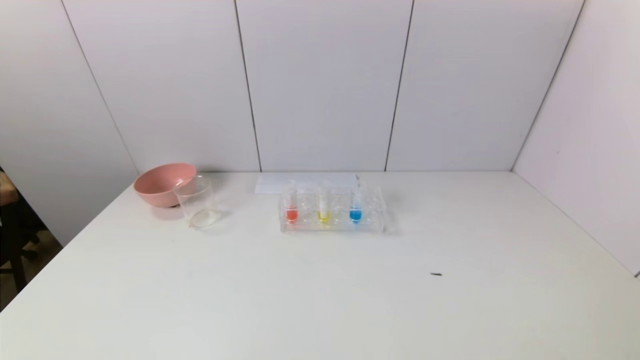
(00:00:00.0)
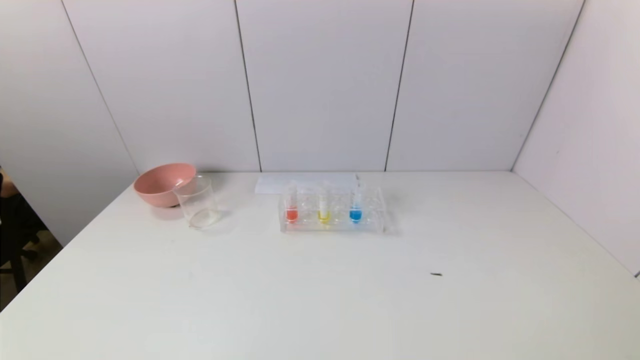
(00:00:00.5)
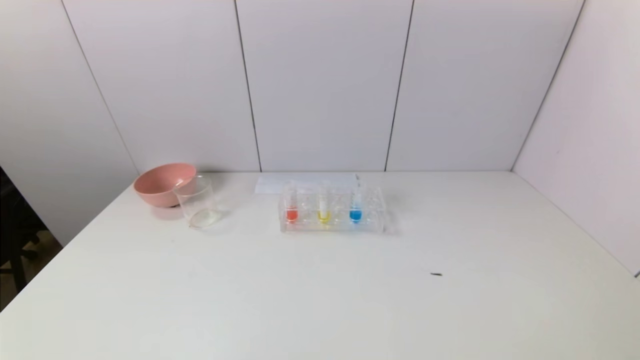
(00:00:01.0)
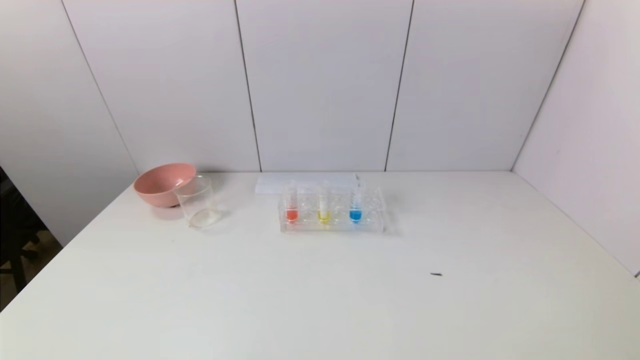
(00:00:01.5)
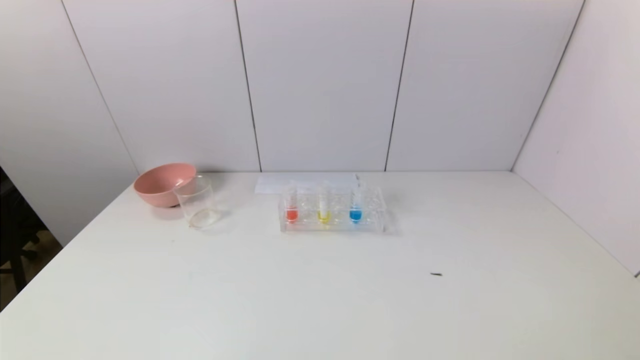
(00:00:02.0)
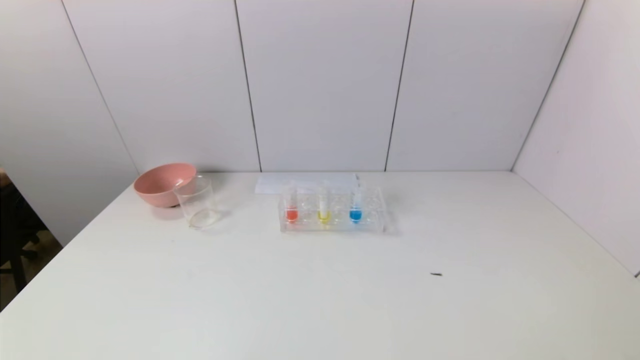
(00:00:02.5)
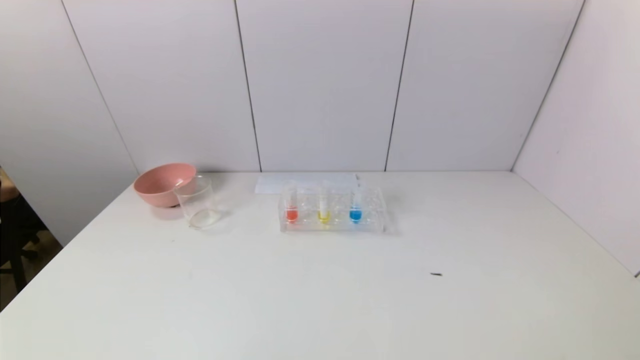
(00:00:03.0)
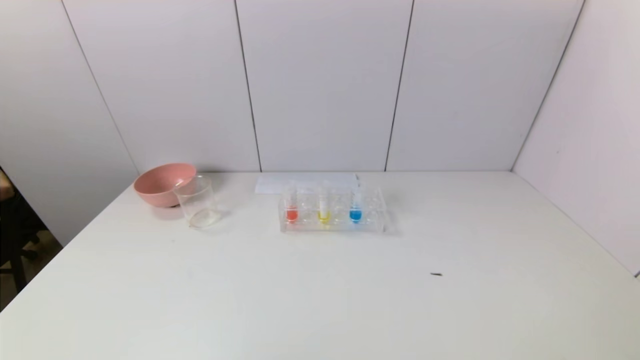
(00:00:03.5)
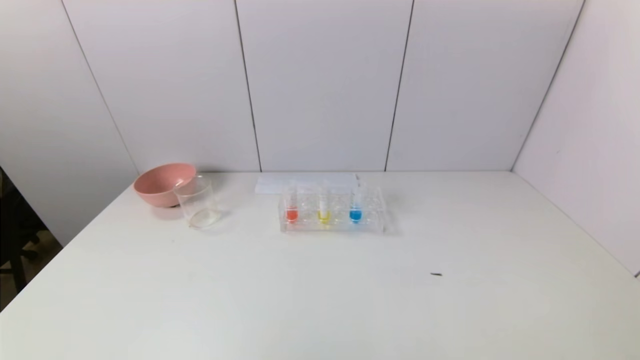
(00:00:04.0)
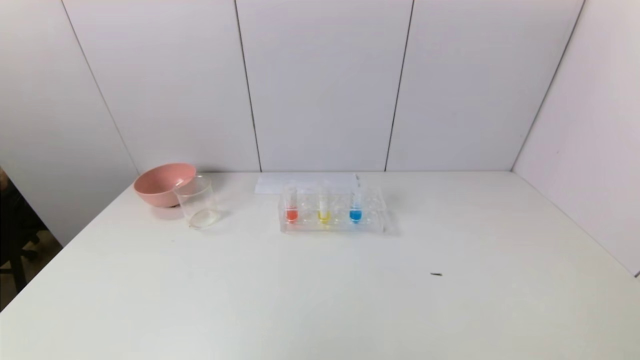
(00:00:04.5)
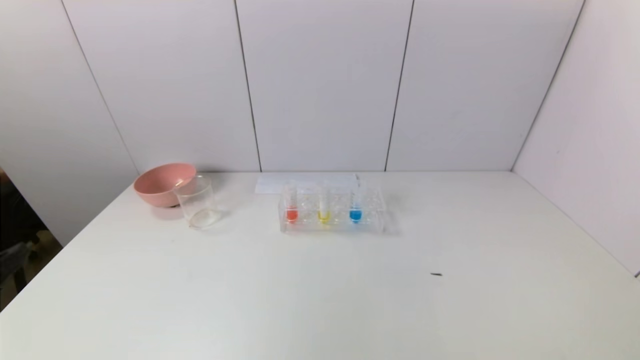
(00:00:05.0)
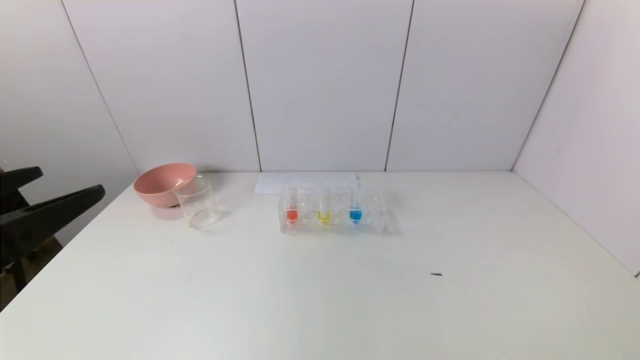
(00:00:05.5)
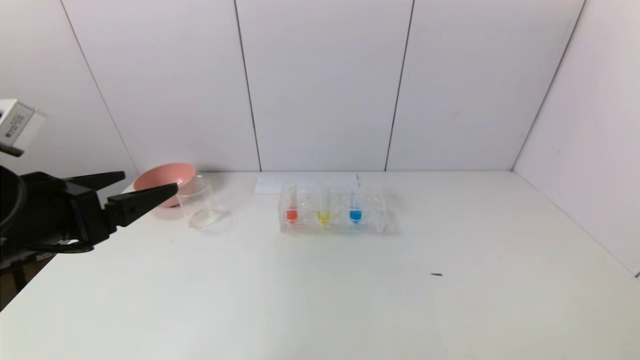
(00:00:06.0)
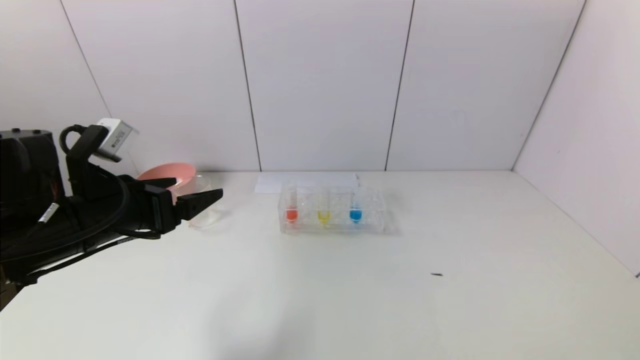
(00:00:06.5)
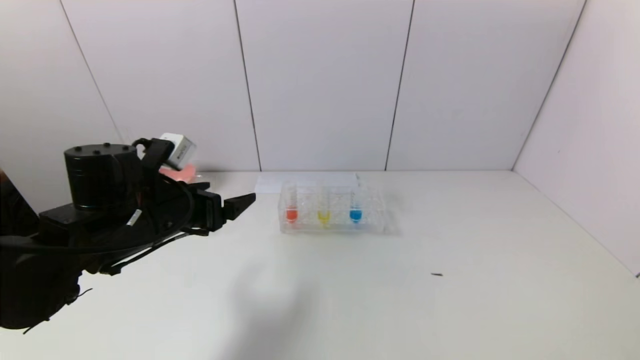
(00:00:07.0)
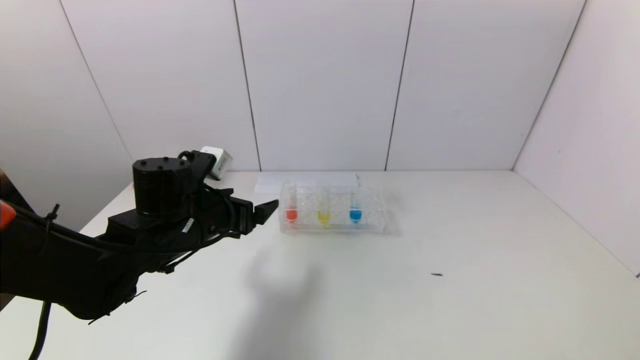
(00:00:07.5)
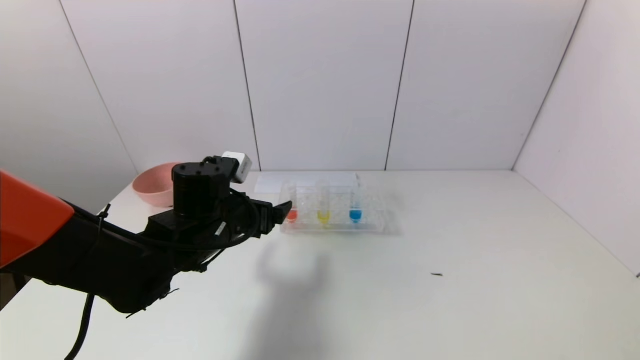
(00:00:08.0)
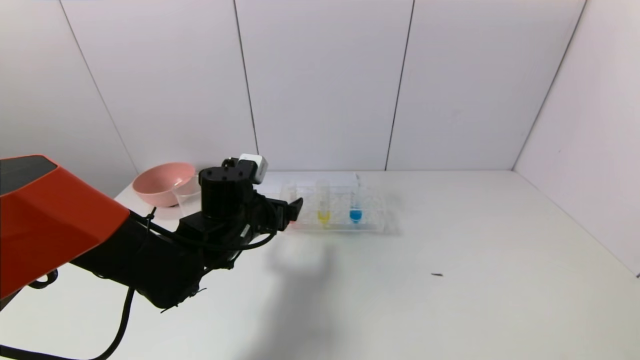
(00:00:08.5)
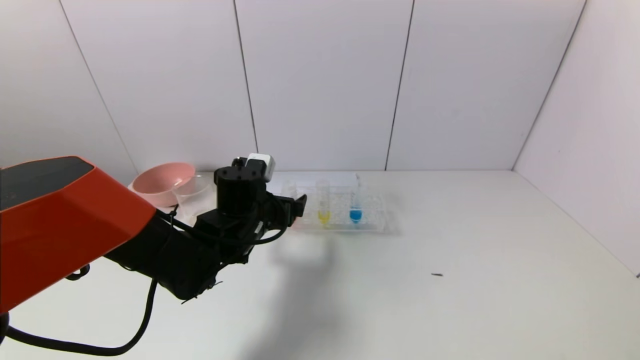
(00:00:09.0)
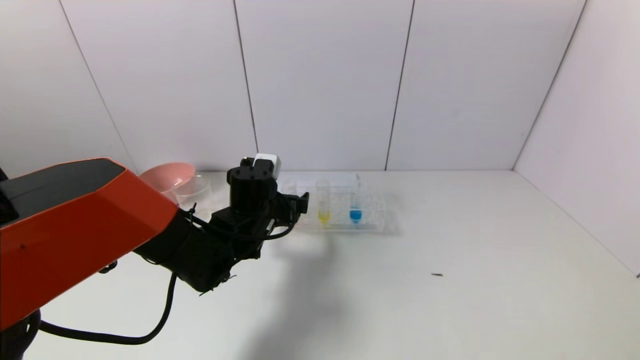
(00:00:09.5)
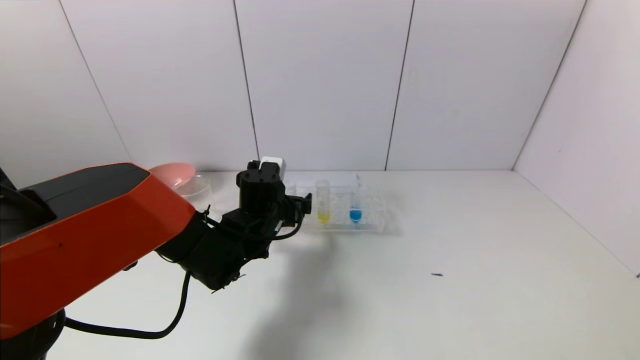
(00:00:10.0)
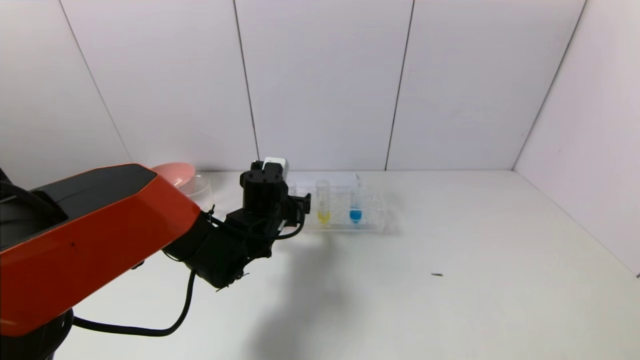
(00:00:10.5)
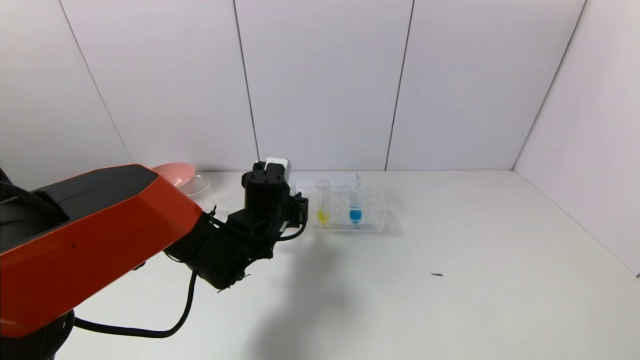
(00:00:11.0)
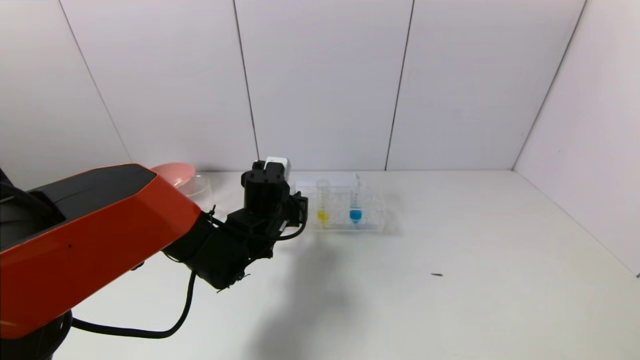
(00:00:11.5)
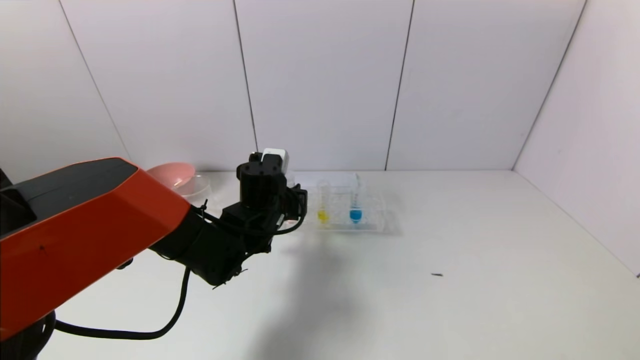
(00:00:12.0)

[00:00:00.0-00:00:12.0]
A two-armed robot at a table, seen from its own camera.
Task of the whole recording: pick up the test tube with yellow pigment and the test tube with red pigment by grippers and pour them into the beaker.
Step, 00:00:00.0 to 00:00:11.0: Grasp the red reagent with the left gripper.
00:00:00.0 to 00:00:02.0: Neither gripper changes place.
00:00:04.0 to 00:00:06.0: The left gripper heads forward, covering roughly 20 cm.
00:00:06.0 to 00:00:08.0: The left gripper heads to the right, forward and downward, covering roughly 20 cm.
00:00:08.0 to 00:00:10.0: The left gripper shifts approximately 10 cm forward and to the right.
00:00:10.0 to 00:00:12.0: The left gripper closes its fingers.

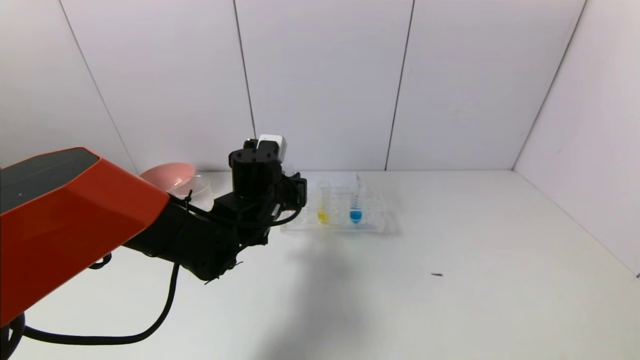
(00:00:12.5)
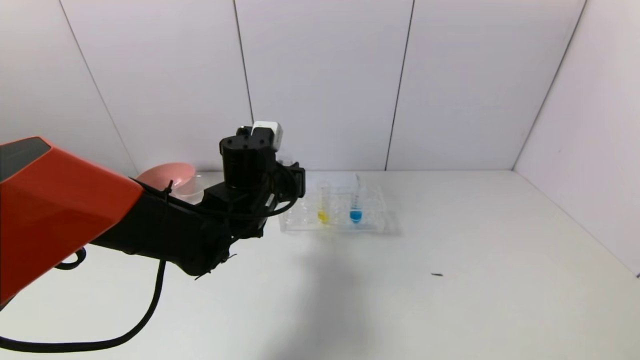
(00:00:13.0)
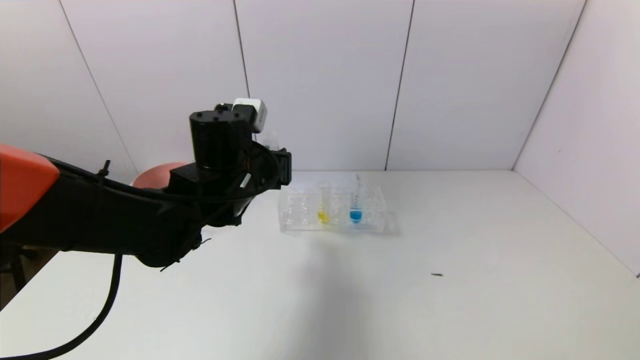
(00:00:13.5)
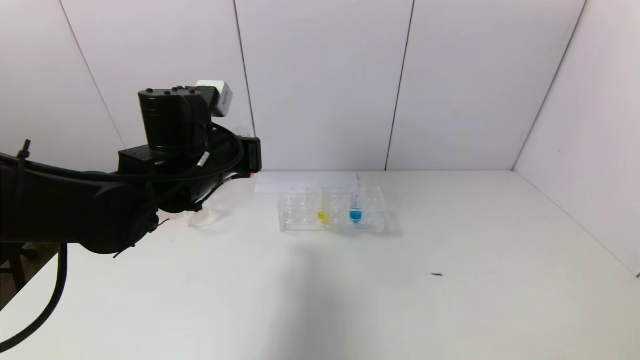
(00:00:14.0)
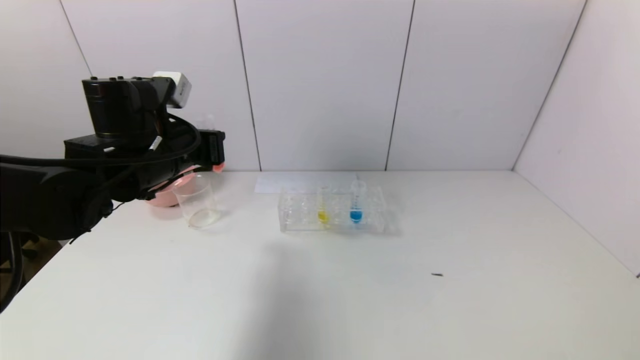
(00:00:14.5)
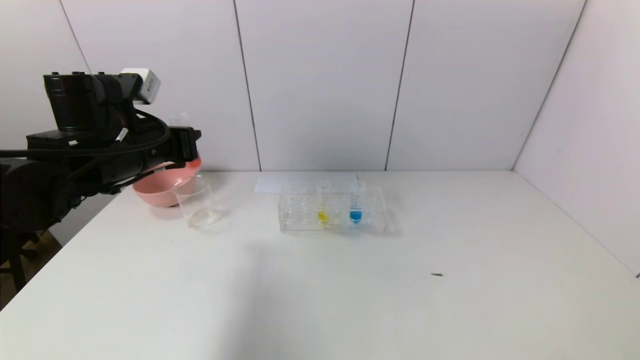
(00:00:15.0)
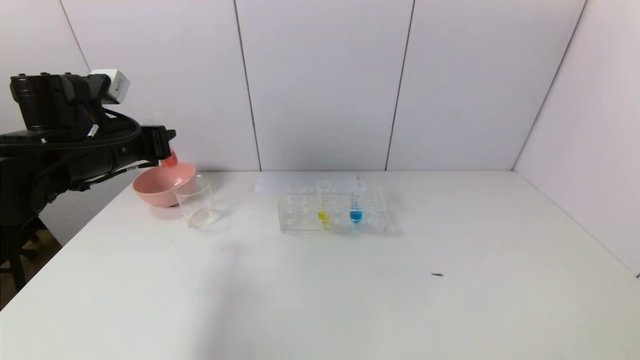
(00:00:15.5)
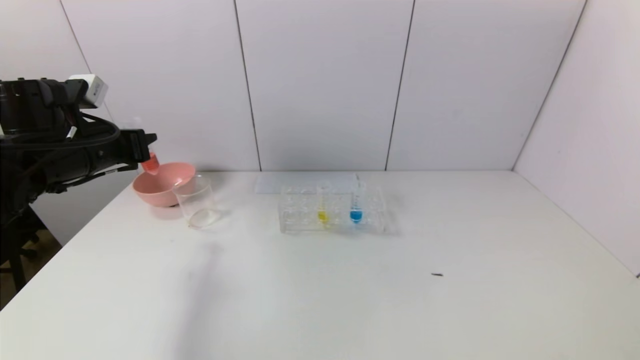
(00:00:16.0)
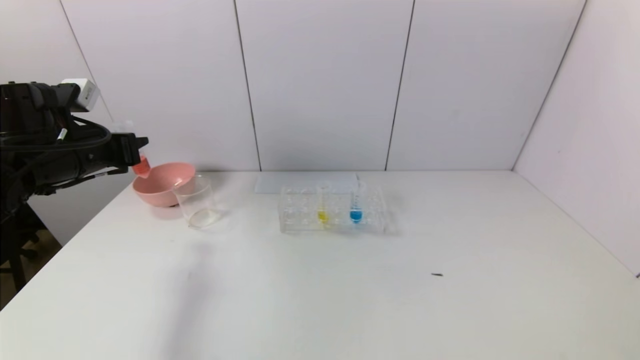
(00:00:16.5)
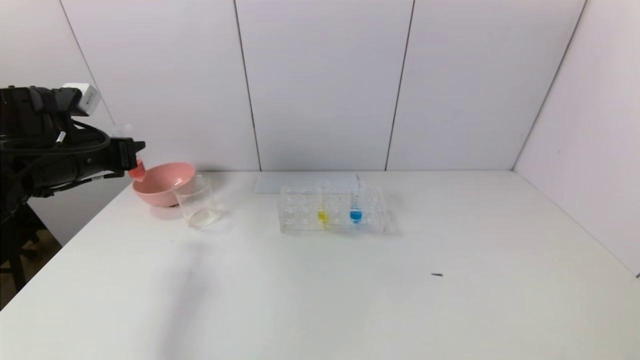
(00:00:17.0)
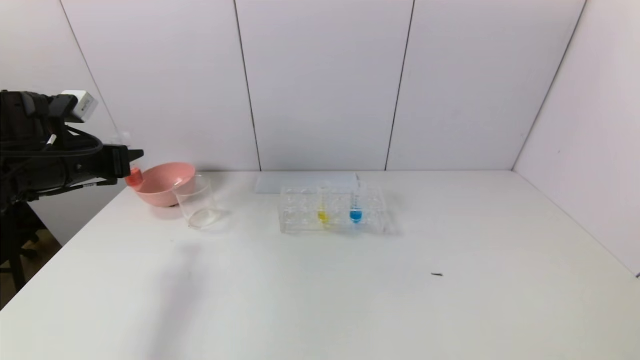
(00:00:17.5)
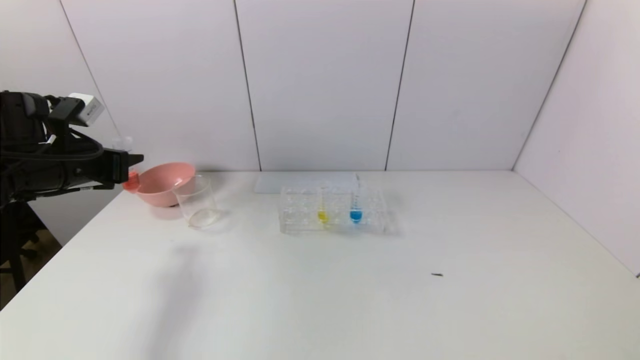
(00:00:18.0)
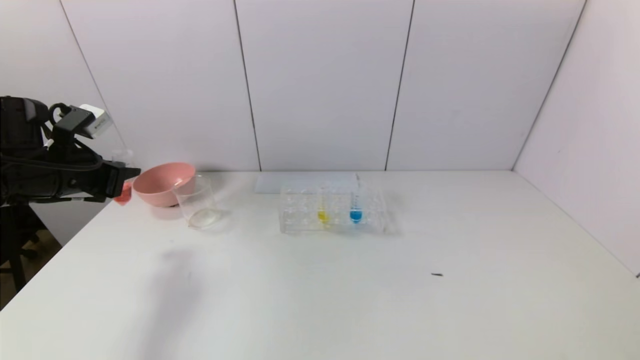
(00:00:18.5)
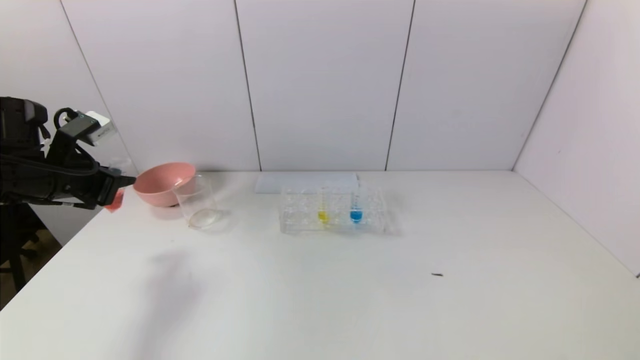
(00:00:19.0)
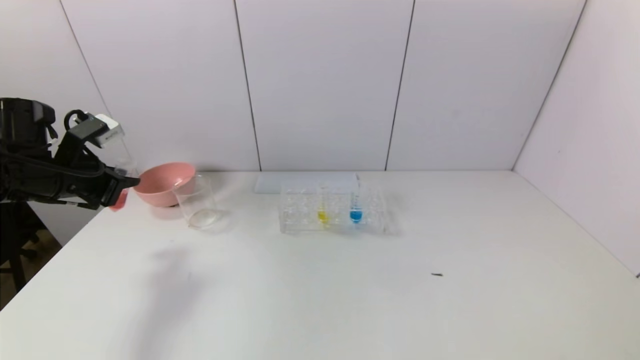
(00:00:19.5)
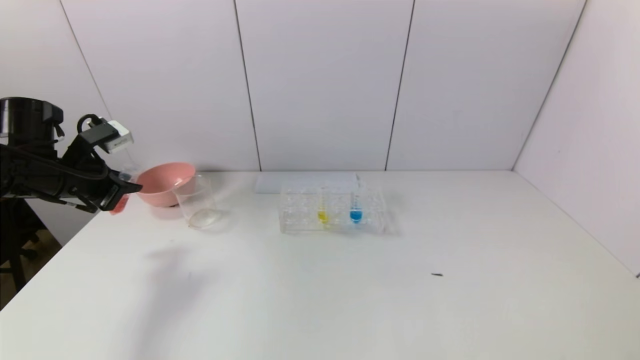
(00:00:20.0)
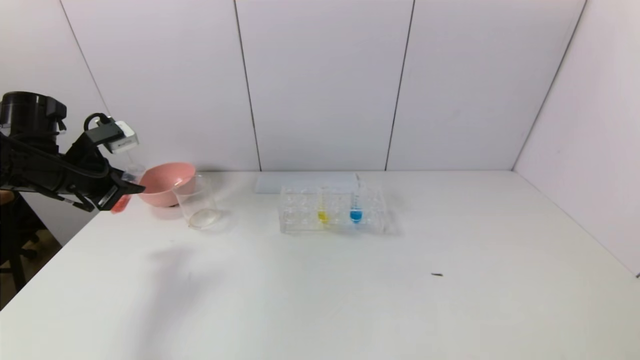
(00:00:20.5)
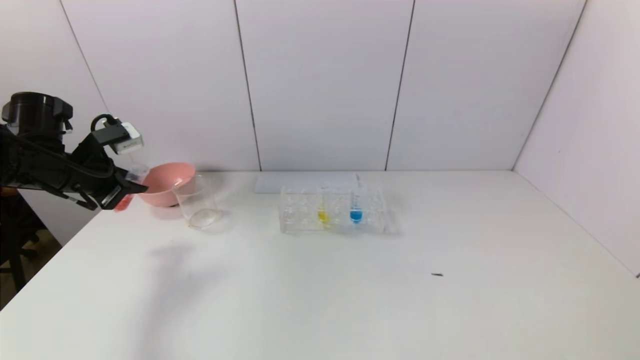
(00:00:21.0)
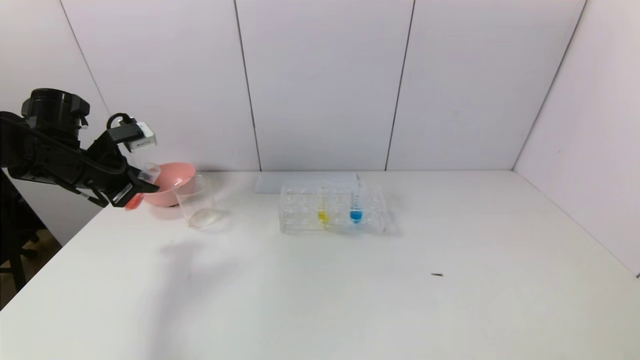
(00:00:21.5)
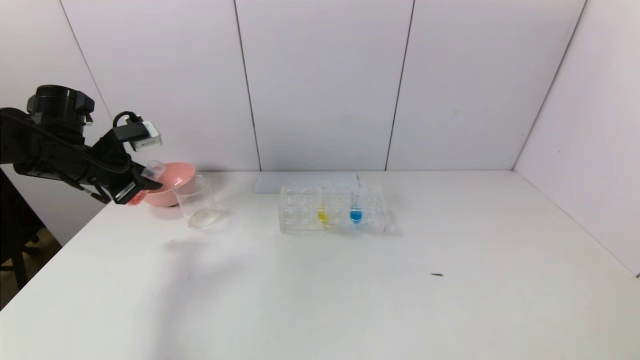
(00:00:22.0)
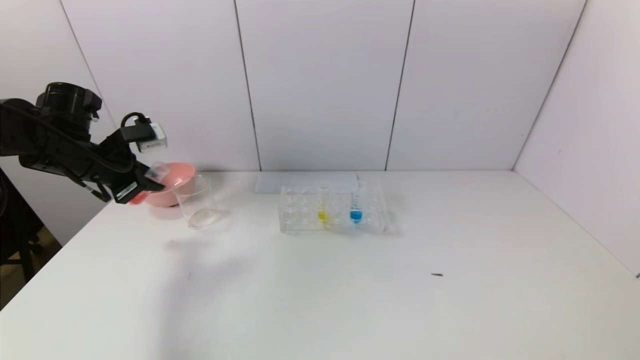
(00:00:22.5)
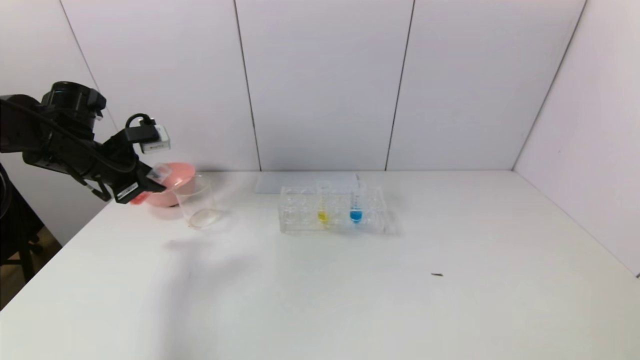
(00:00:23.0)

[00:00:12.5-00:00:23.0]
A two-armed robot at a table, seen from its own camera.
Task of the whole recording: pick up the test tube with yellow pigment and the test tube with red pigment by grippers and pour them into the beaker.
00:00:12.5 to 00:00:14.5: The left gripper moves to the left and upward, roughly 15 cm.
00:00:14.5 to 00:00:16.5: The left gripper travels to the left by some 15 cm.
00:00:21.0 to 00:00:23.0: There are only small adjustments of the grippers.
